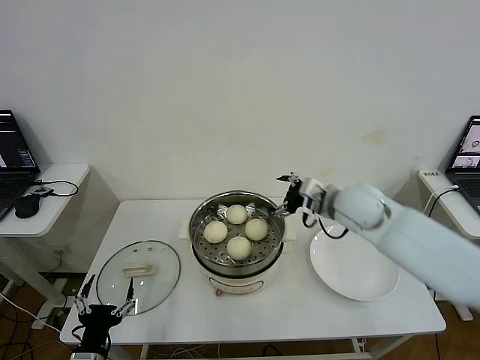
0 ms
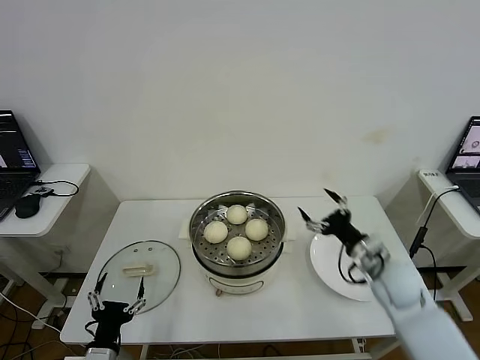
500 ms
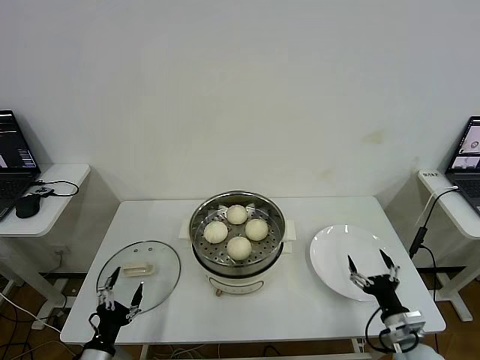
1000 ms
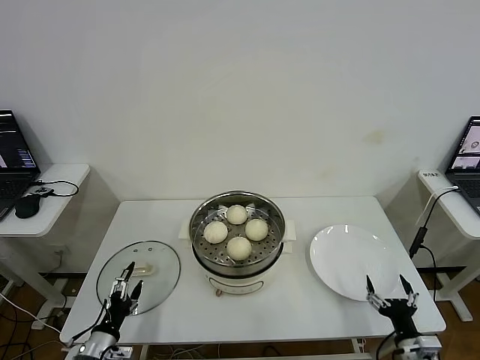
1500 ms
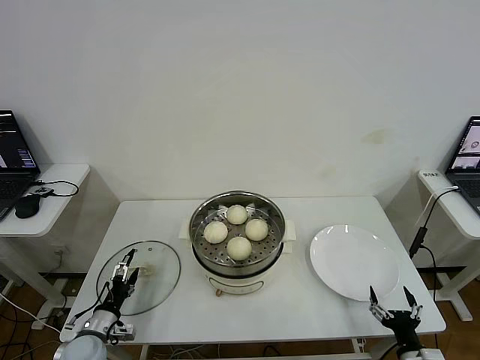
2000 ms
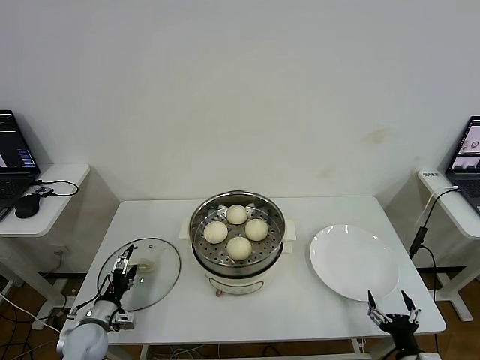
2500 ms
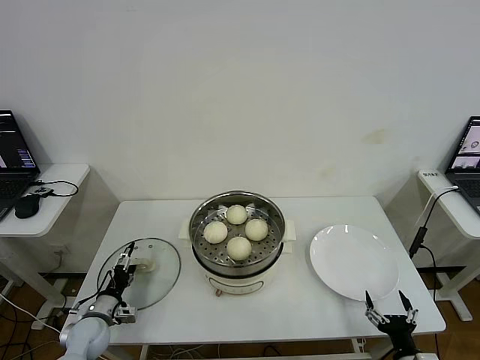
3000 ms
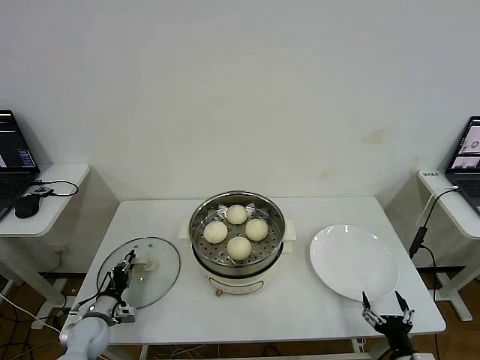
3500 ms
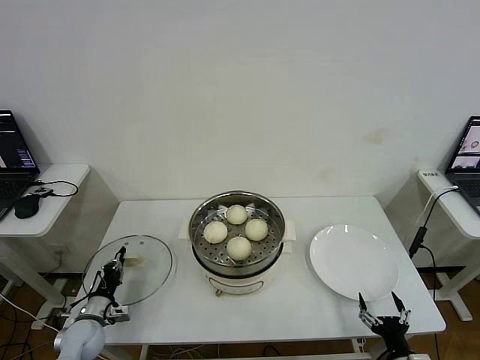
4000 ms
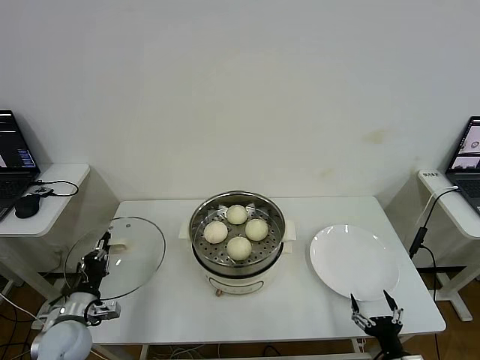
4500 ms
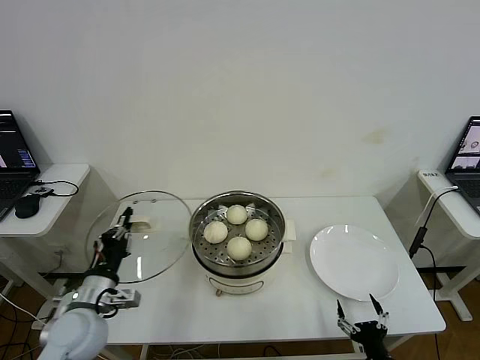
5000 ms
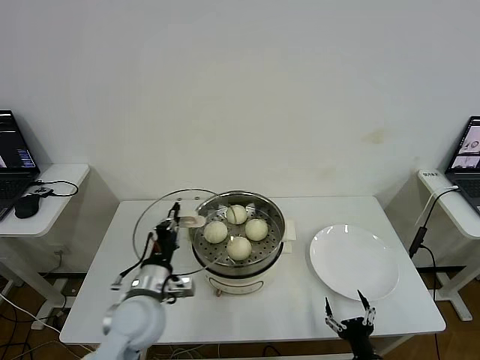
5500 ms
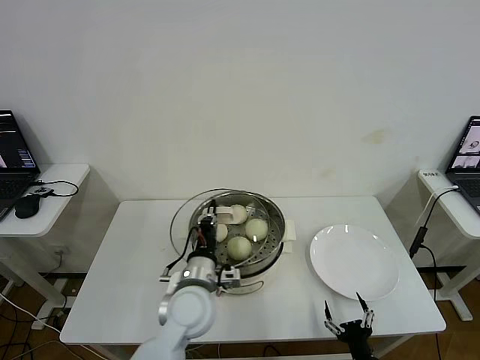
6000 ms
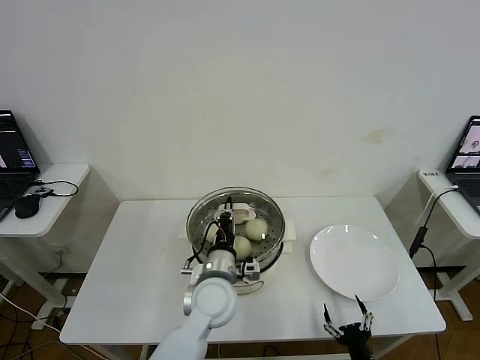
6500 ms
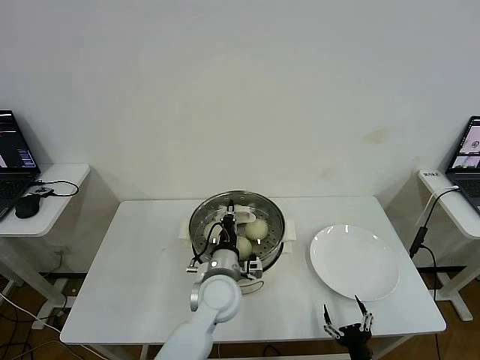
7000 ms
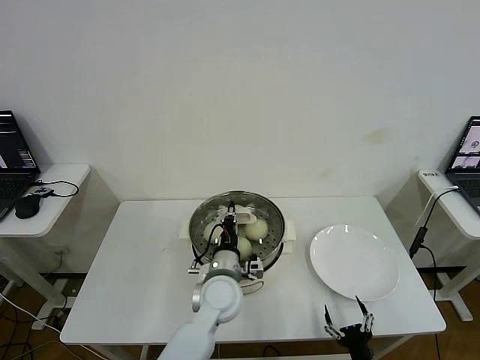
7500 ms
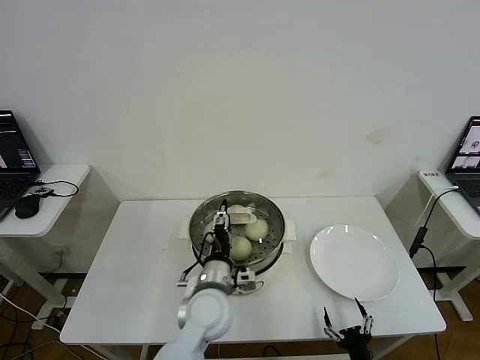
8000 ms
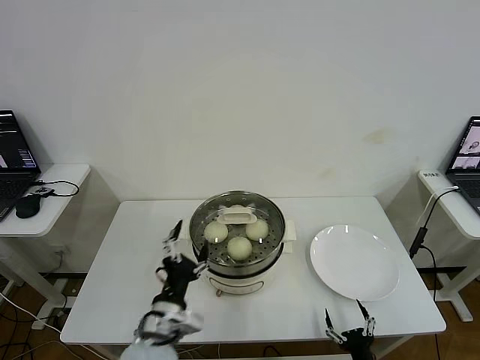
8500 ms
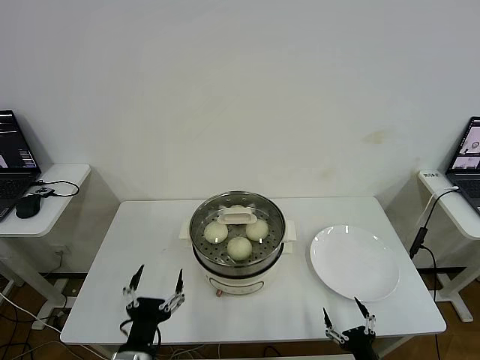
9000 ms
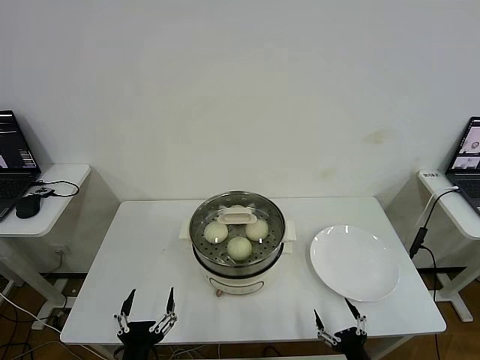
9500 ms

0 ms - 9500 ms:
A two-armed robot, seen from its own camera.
Step, 0 ms - 3500 ms: Grasp the pot lid with left gripper.
Step, 4000 ms - 8000 ms: Place the pot lid on the steamer with left gripper.
0 ms - 2000 ms: The left gripper is displaced forward, downward and to the left by some 15 cm, while the right gripper moves backward, downward and to the right, roughly 40 cm.
2000 ms - 4000 ms: The left gripper changes place by approximately 5 cm, and closes.
4000 ms - 5500 ms: The left gripper moves to the right and upward, about 25 cm. The right gripper travels to the left by approximately 5 cm.
5500 ms - 7500 ms: The left gripper heads to the right, covering about 15 cm.
7500 ms - 9500 ms: The left gripper travels backward and to the left by approximately 30 cm, and opens up.
